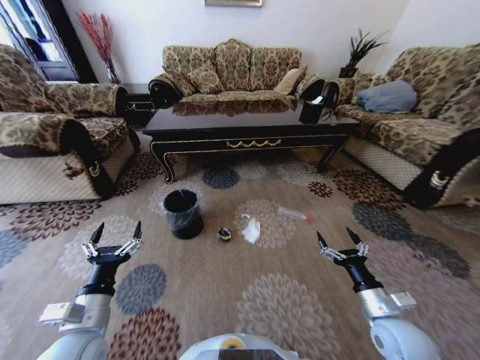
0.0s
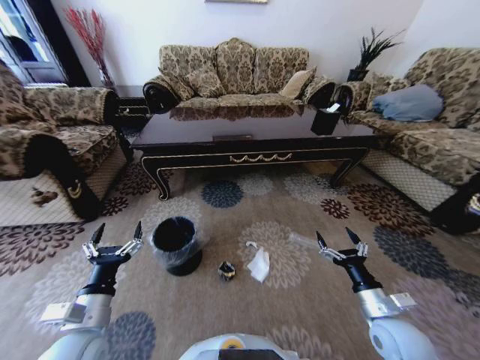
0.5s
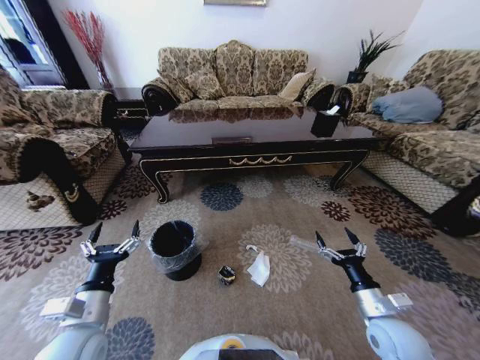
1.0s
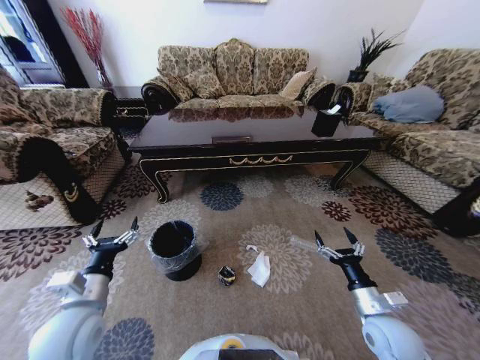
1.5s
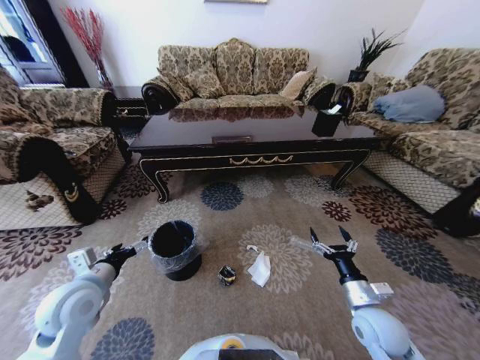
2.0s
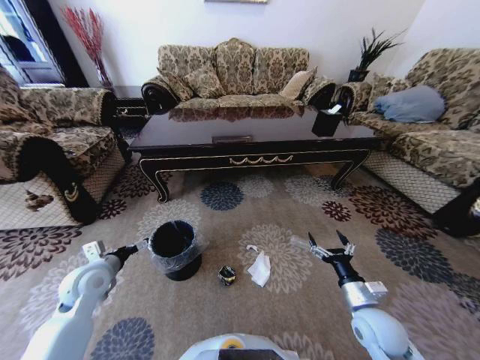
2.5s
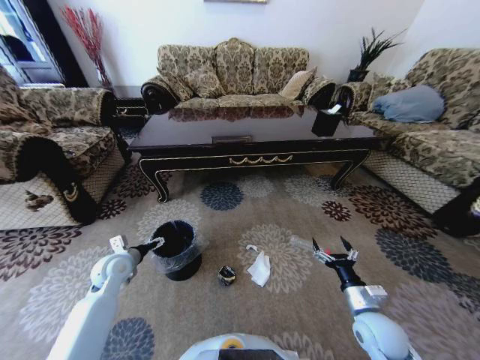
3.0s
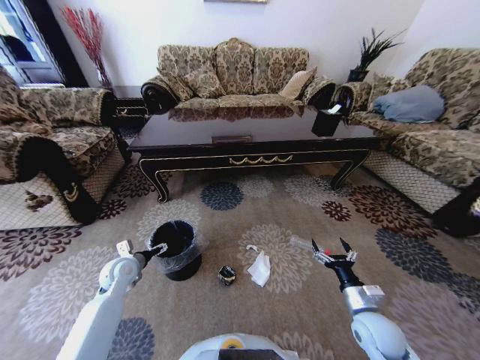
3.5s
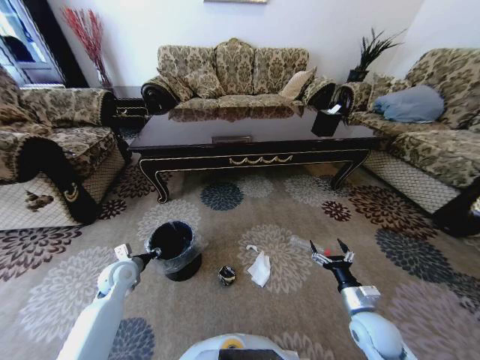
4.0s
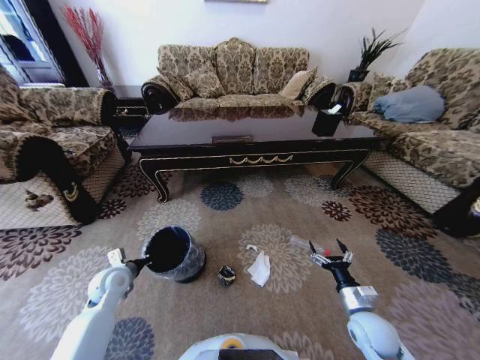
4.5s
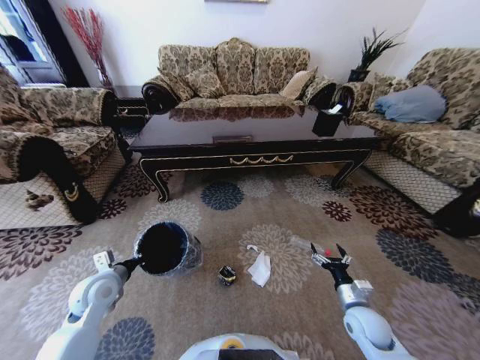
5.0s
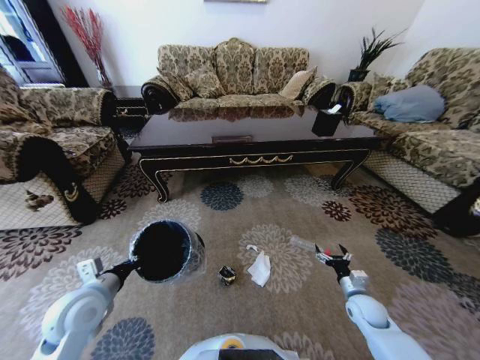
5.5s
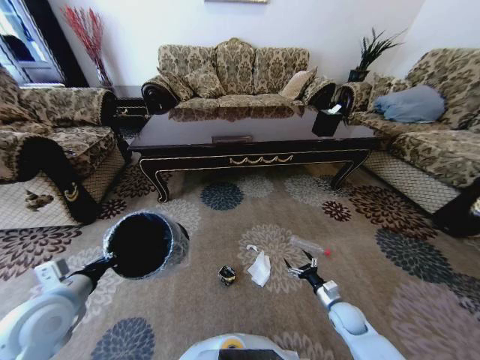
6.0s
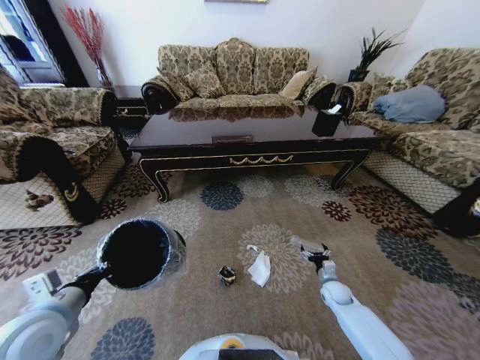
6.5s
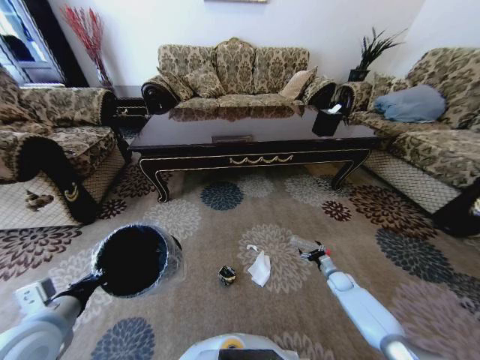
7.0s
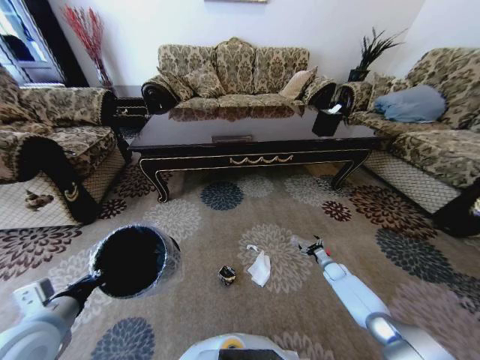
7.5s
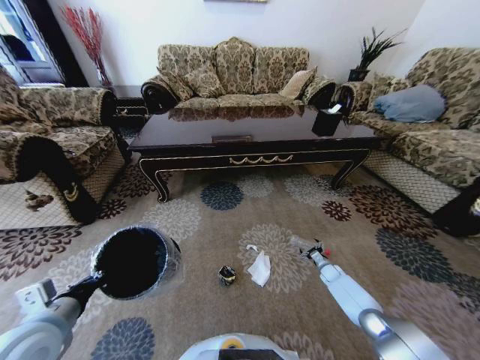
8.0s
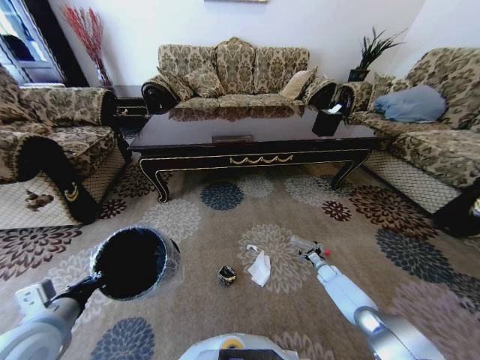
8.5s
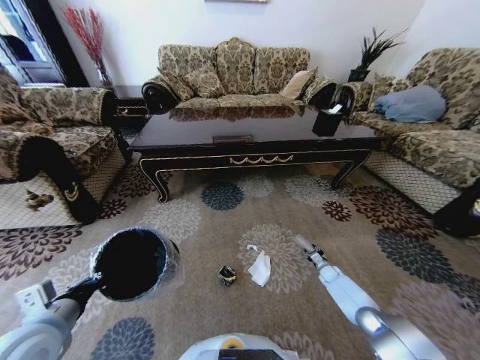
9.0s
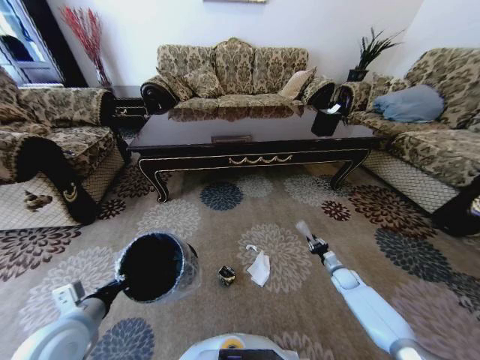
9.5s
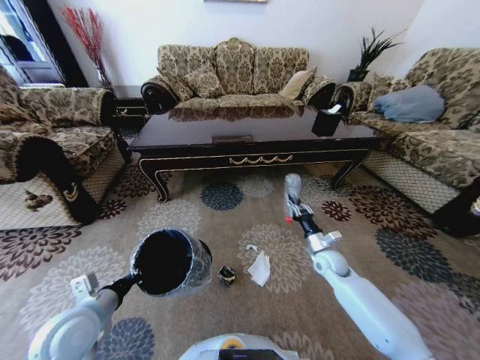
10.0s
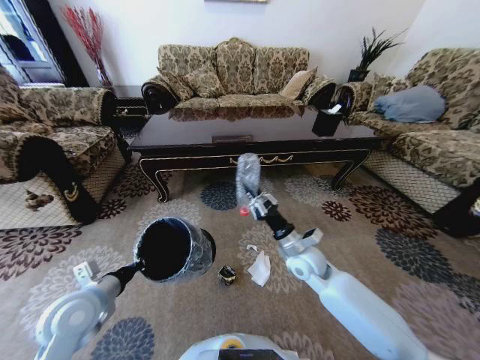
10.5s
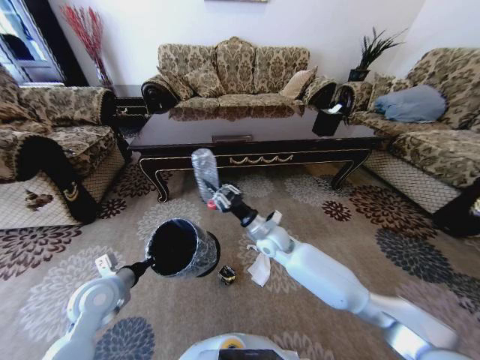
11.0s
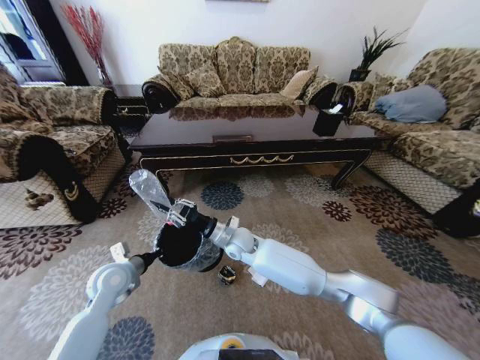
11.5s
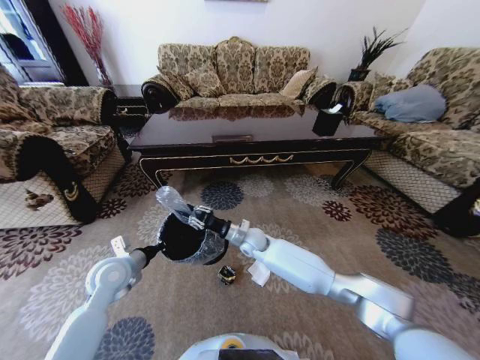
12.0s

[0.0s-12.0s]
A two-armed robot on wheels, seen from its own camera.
Task of the whole recording: Move to the front of the table and pick up the trash from the floor, then place it into the trash bin.
0.0s to 2.0s: The left gripper goes some 10 cm forward.
2.0s to 4.0s: The left gripper shifts approximately 15 cm downward and forward, and closes.
4.0s to 6.0s: The right gripper shifts approximately 15 cm downward and forward. The left gripper shifts approximately 20 cm upward and backward, and closes.
6.0s to 8.0s: The right gripper moves forward, to the right and downward, approximately 20 cm.
8.0s to 10.0s: The right gripper goes some 25 cm upward and to the left, and closes its fingers; the left gripper moves approximately 5 cm.
10.0s to 12.0s: The right gripper goes about 25 cm to the left, while the left gripper moves forward, some 10 cm.

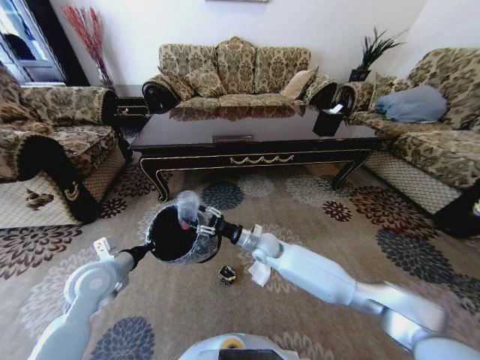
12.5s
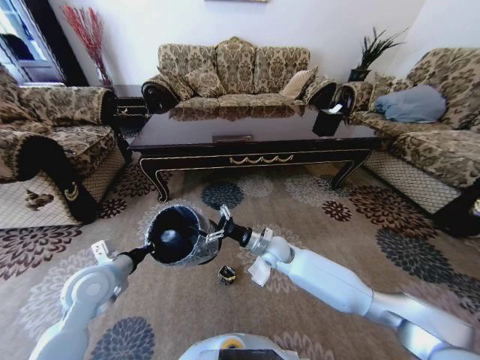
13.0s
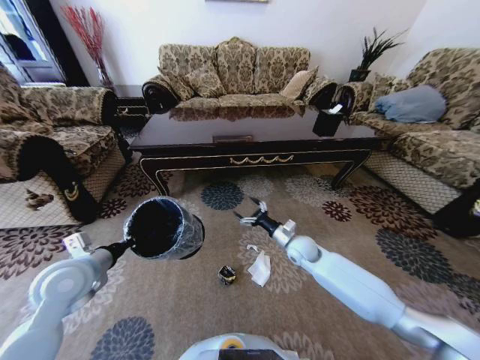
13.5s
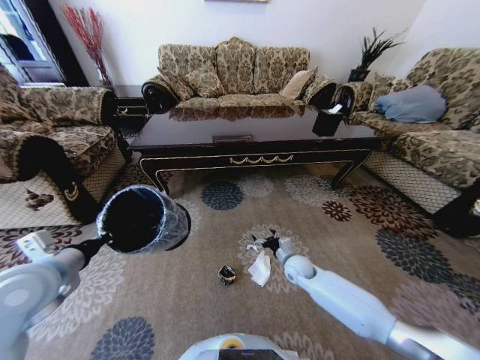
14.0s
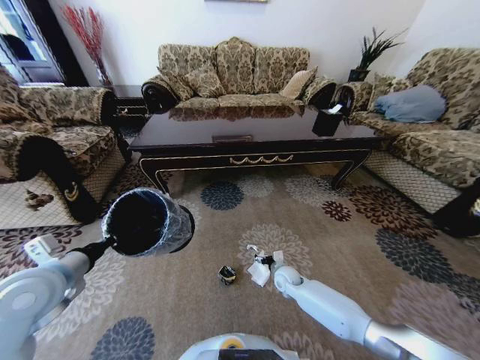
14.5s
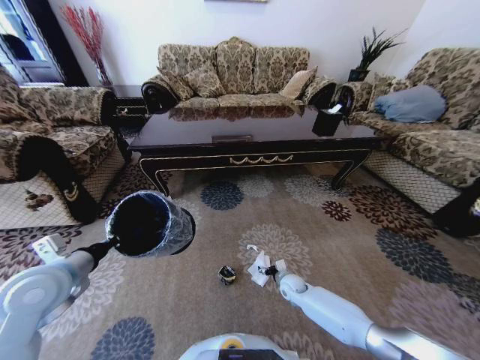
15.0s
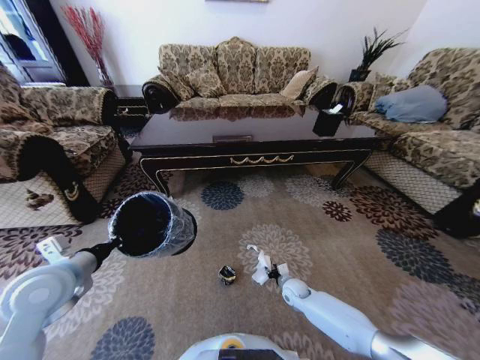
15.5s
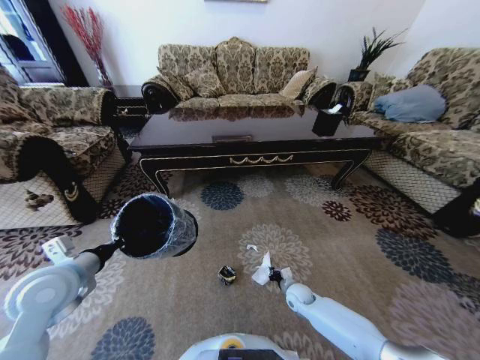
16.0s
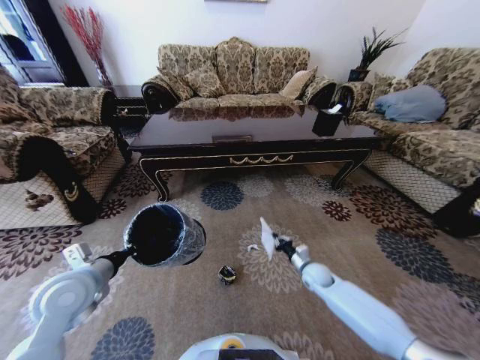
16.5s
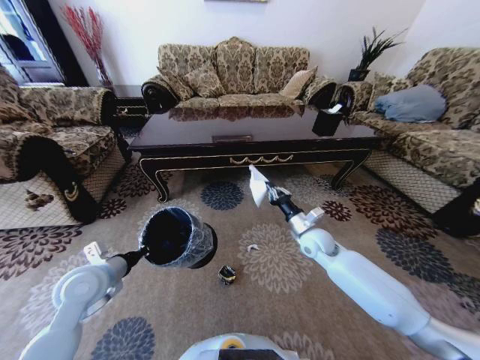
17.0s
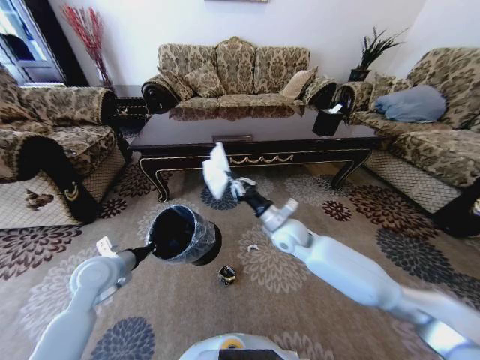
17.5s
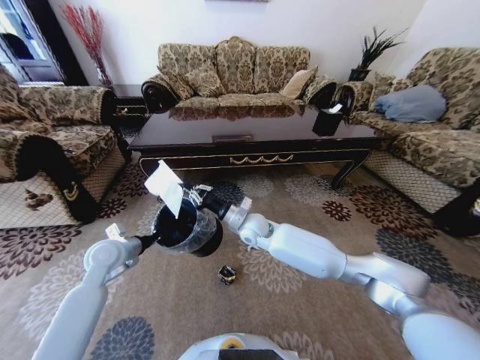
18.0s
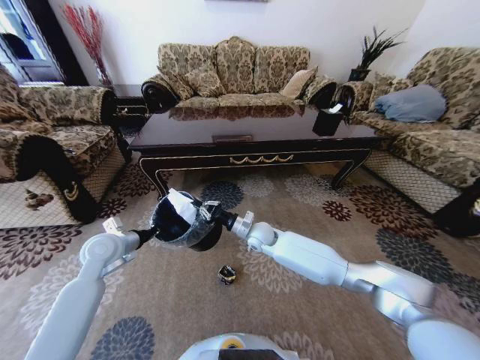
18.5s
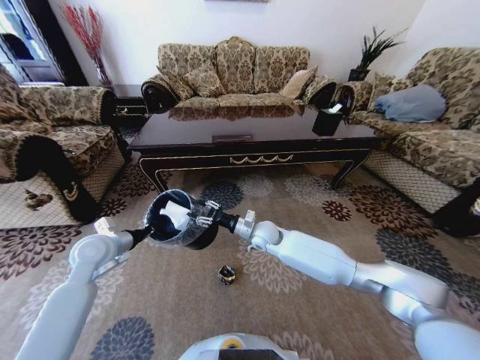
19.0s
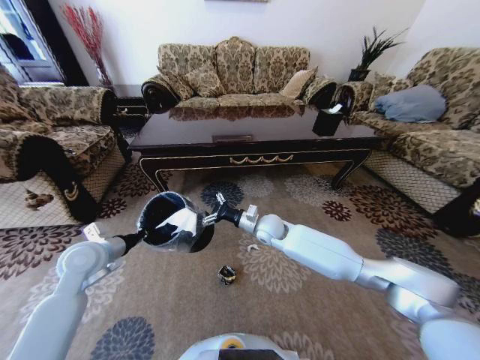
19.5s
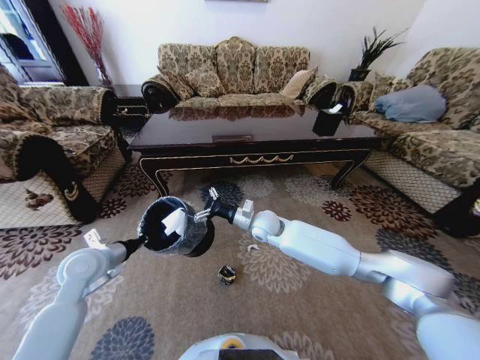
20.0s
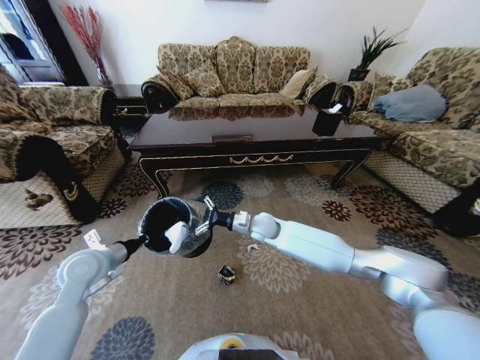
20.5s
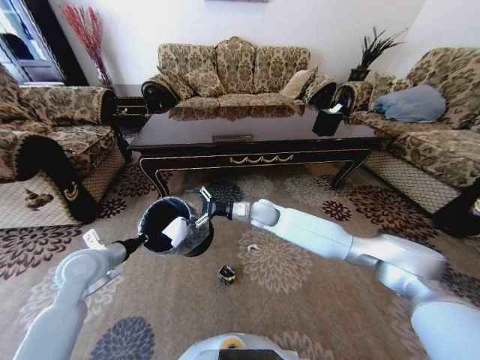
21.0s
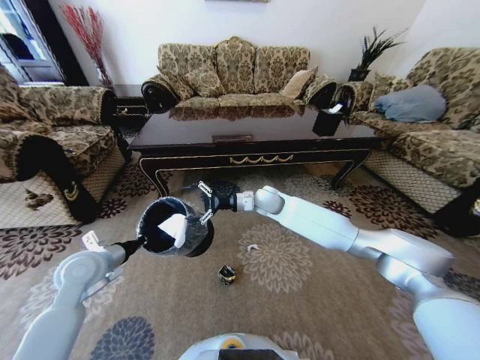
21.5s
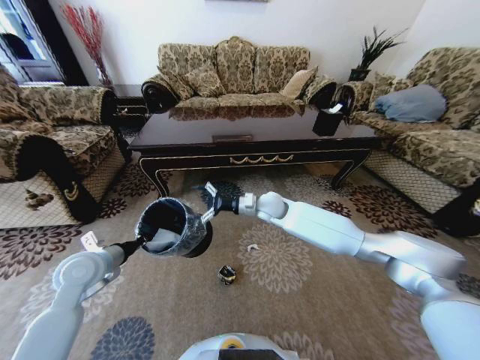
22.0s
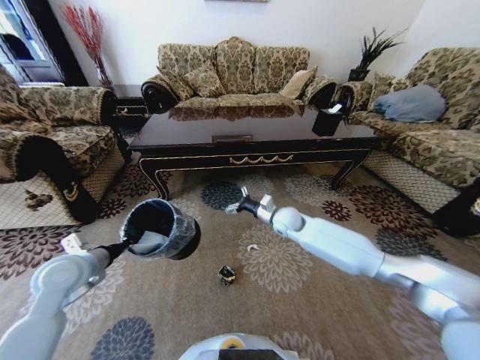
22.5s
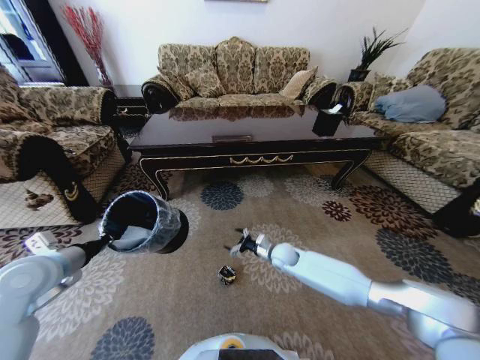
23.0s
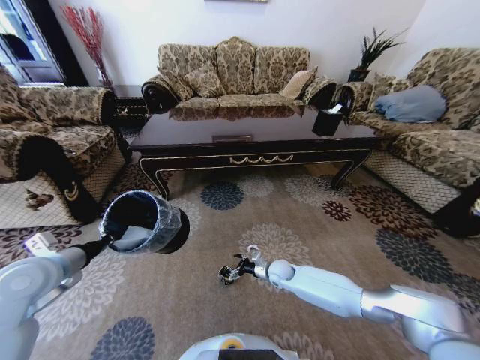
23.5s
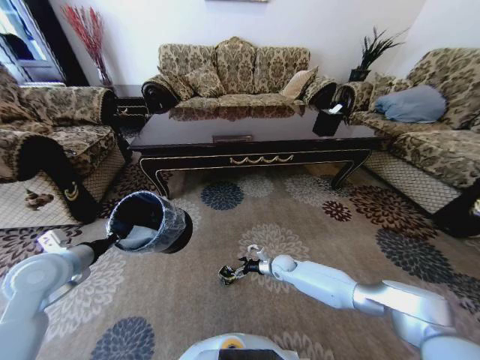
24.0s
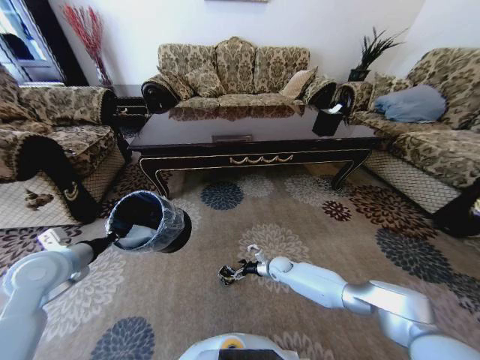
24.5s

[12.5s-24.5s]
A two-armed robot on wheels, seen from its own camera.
Task of the whole recording: Move to the front of the table and pick up the trash from the floor, then place it into the trash bin.
12.5s to 14.5s: The right gripper heads downward and to the right, covering some 20 cm, and opens up. The left gripper moves upward, about 10 cm.
14.5s to 16.5s: The left gripper shifts by some 5 cm, while the right gripper shifts about 10 cm to the right, and closes up.
16.5s to 18.5s: The right gripper moves to the left and upward, some 25 cm, while the left gripper is displaced forward by roughly 10 cm.
18.5s to 20.5s: The right gripper opens up; the left gripper travels backward by approximately 5 cm.
20.5s to 22.5s: The right gripper shifts some 10 cm to the right.
22.5s to 24.5s: The right gripper heads downward, covering about 25 cm.

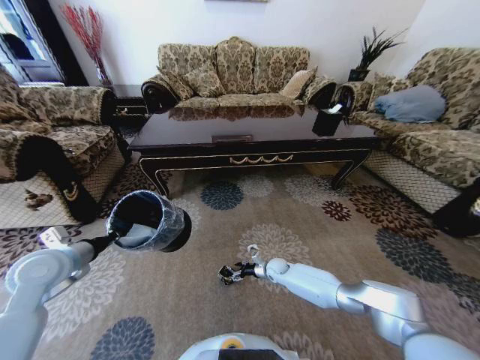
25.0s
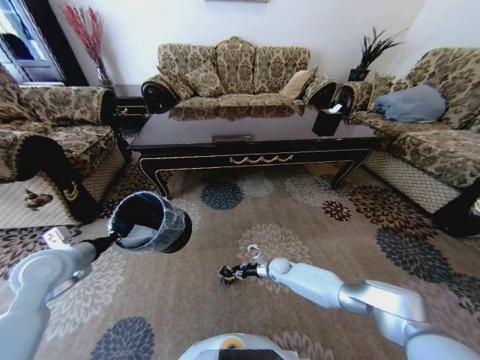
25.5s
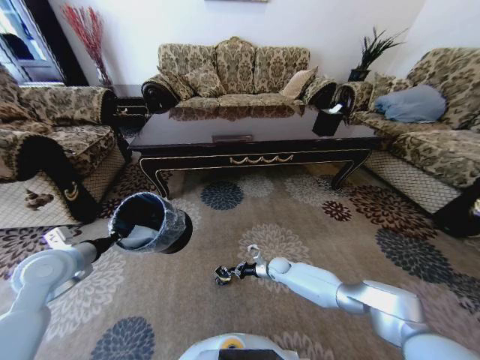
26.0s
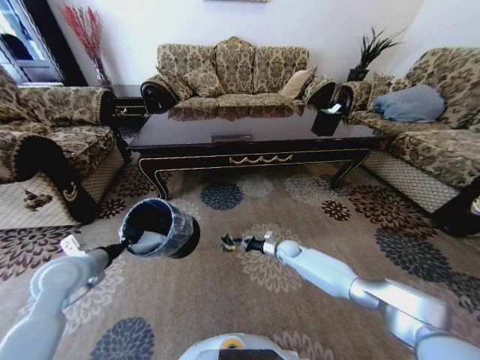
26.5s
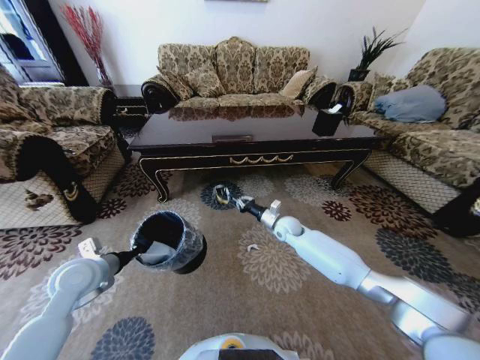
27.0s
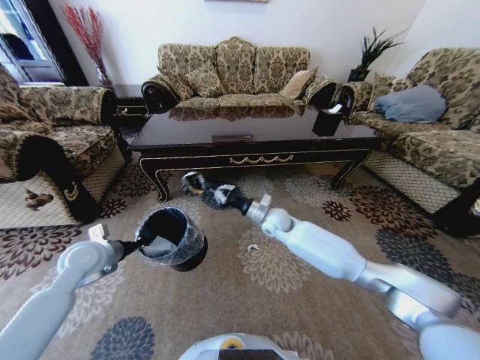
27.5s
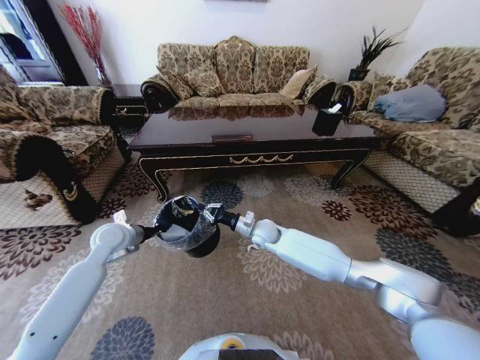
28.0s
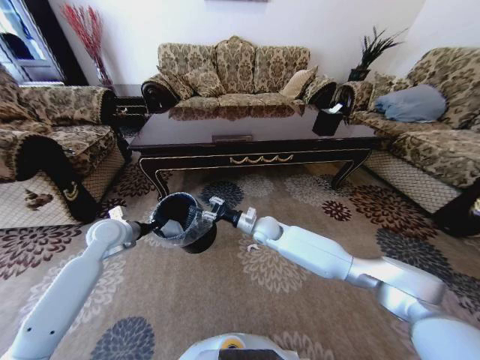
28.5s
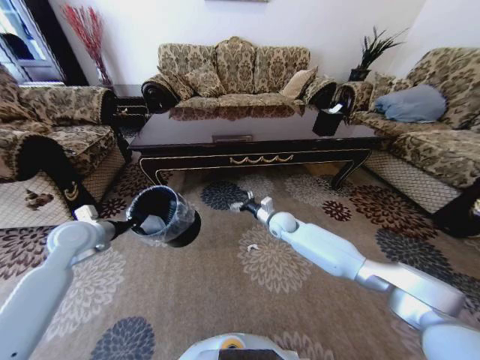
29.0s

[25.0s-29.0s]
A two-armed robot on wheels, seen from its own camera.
Task of the whole recording: Move to the front of the table and pick up the trash from the floor, then place it into the trash bin.
25.0s to 27.0s: The left gripper shifts by some 5 cm. The right gripper heads upward, covering about 20 cm, and closes up.
27.0s to 29.0s: The left gripper moves forward, approximately 10 cm. Meanwhile the right gripper goes to the left and returns, roughly 10 cm each way, and opens.
